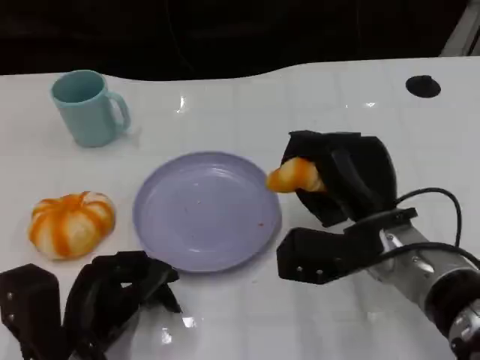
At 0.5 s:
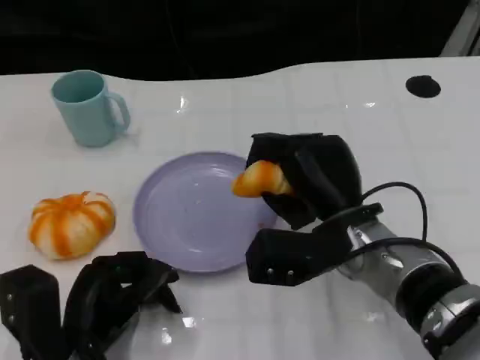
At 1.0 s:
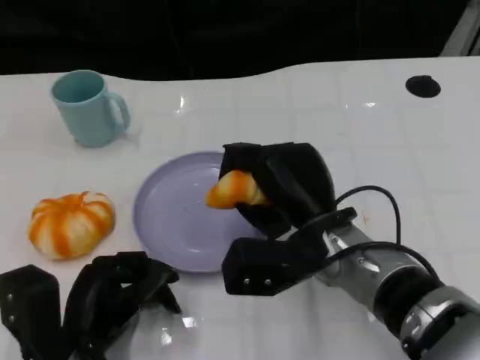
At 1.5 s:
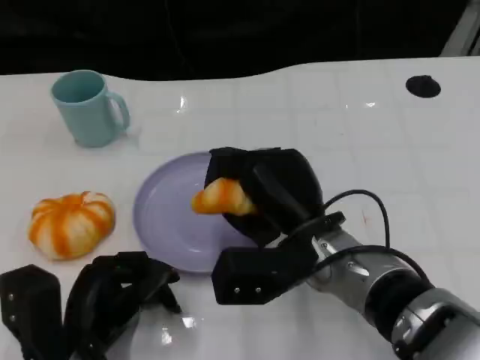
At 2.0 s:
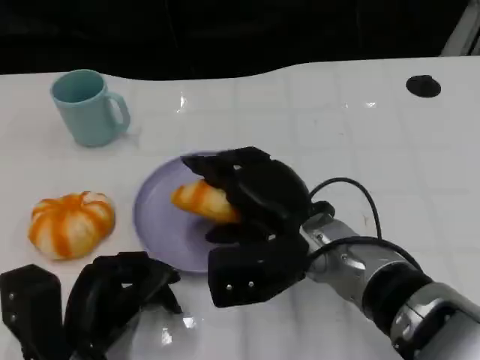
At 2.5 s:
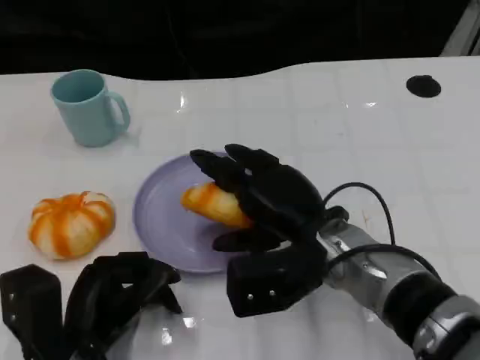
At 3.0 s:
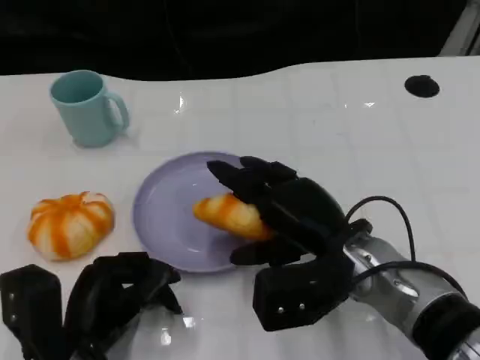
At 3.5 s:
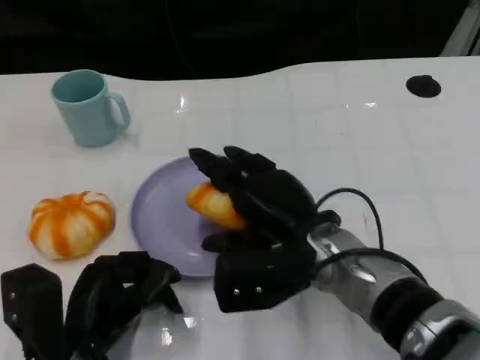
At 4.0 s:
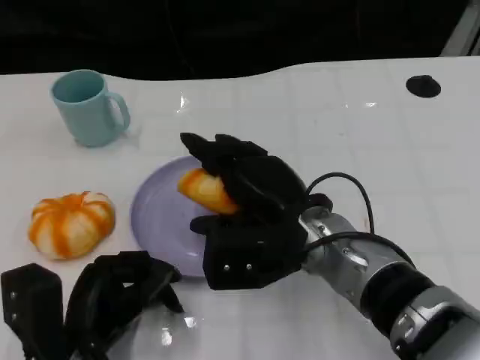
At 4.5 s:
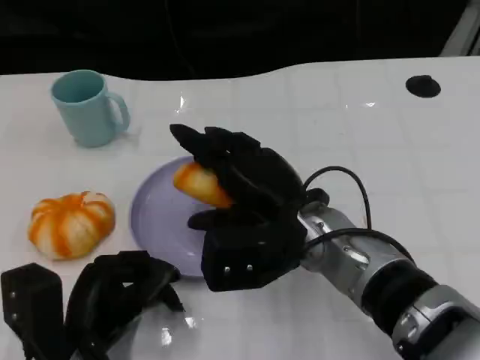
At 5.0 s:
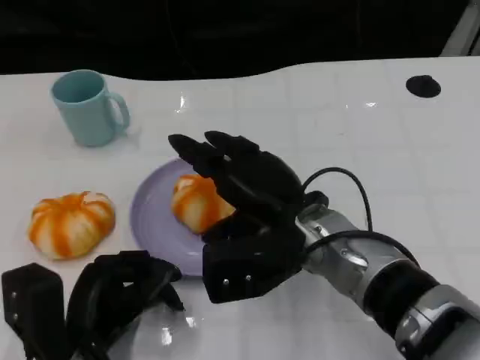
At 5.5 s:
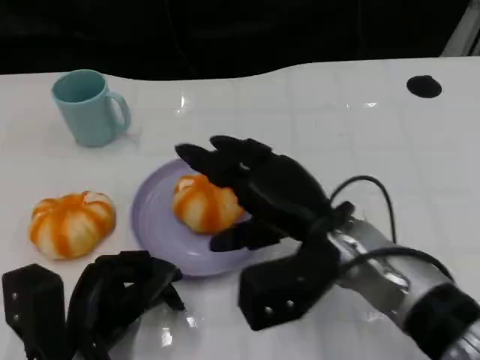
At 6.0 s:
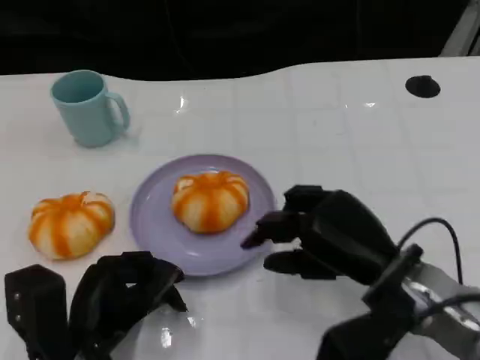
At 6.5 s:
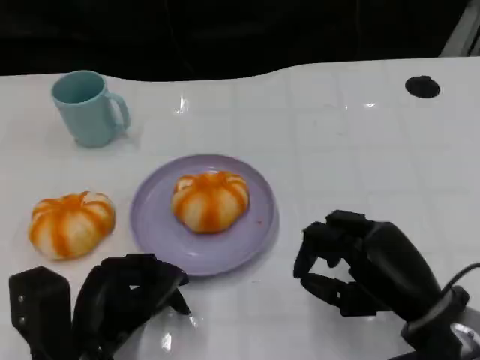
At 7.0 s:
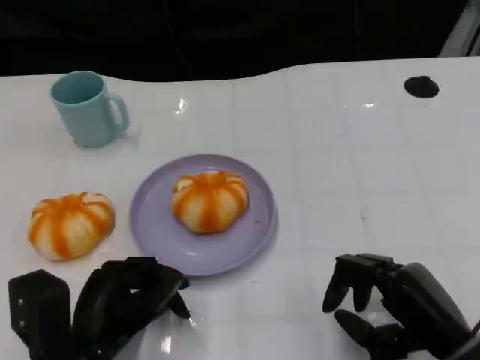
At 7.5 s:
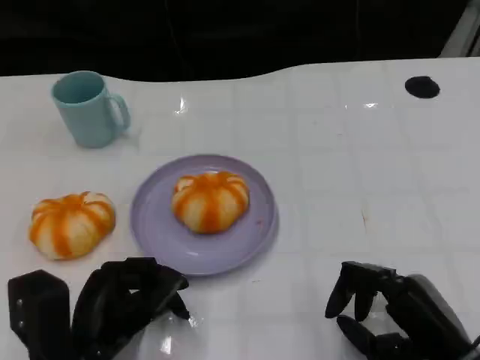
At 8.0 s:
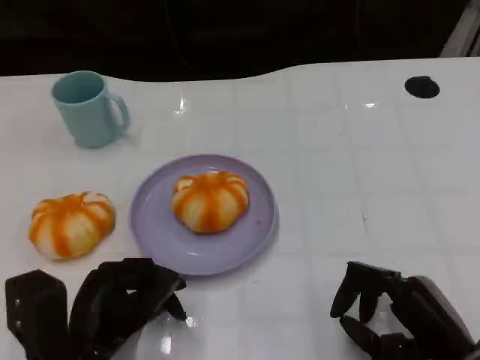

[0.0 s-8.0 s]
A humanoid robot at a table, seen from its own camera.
Task of the whole recording: Grasp the bread from the table and place it into the plate.
0.0 to 2.0 s: The right hand heads to the left, covering about 5 cm.
2.0 to 4.0 s: The hands make only small movements.
4.0 to 6.0 s: The right hand moves to the right, roughly 10 cm.
6.0 to 8.0 s: The right hand goes approximately 10 cm backward, to the right and downward.

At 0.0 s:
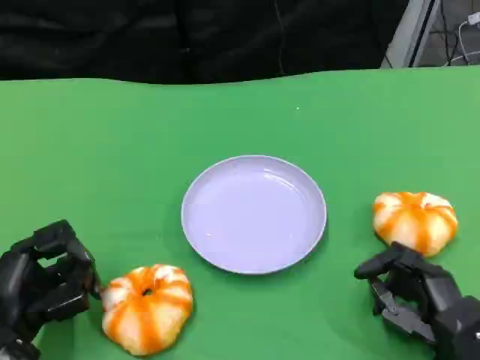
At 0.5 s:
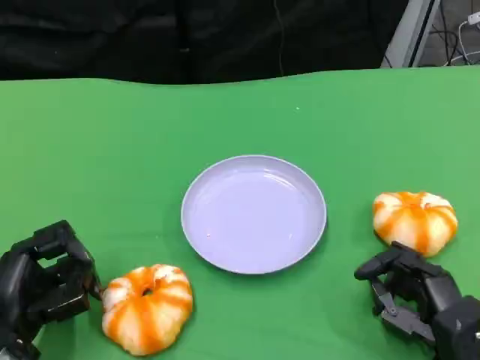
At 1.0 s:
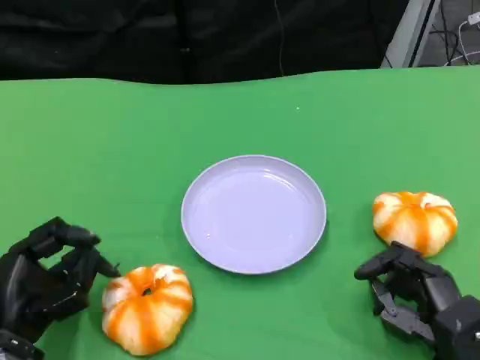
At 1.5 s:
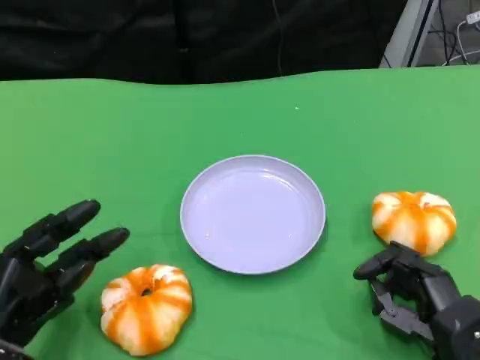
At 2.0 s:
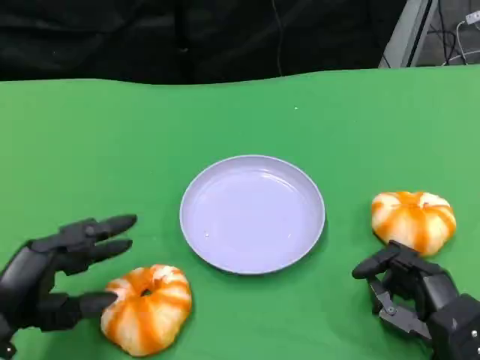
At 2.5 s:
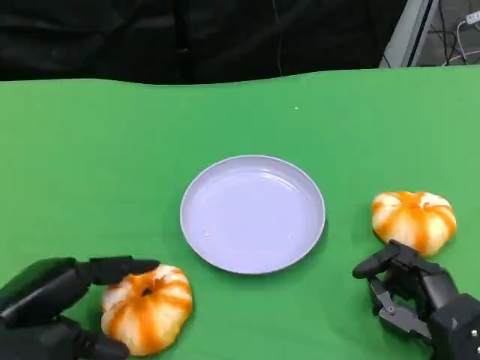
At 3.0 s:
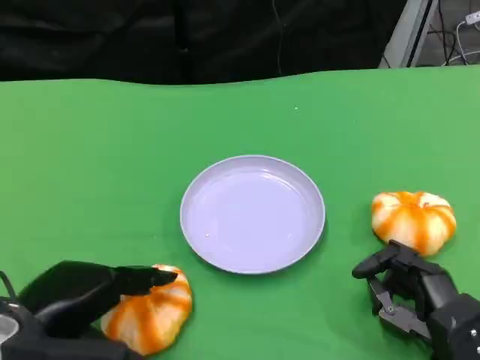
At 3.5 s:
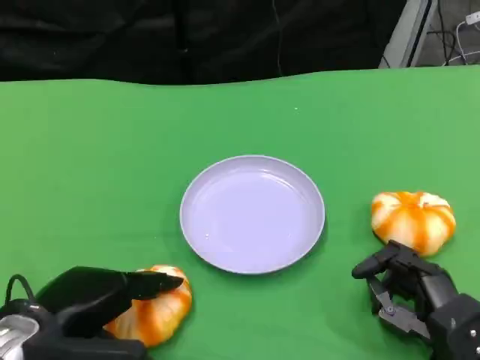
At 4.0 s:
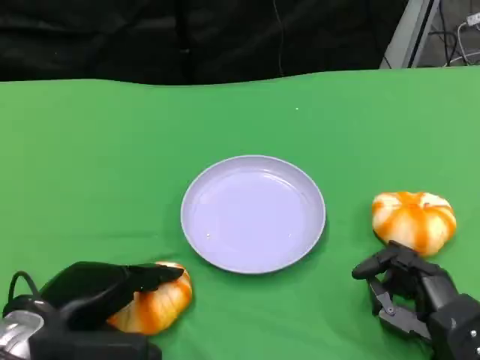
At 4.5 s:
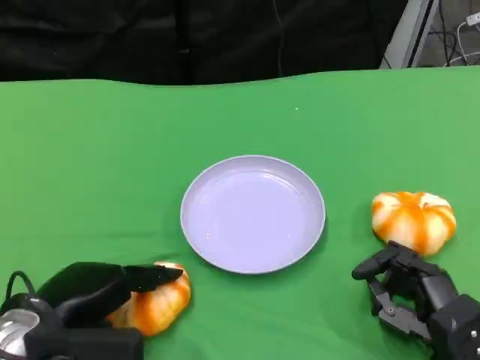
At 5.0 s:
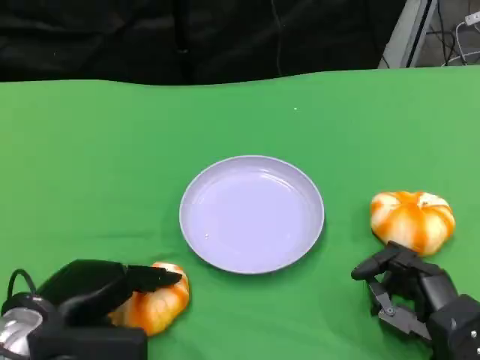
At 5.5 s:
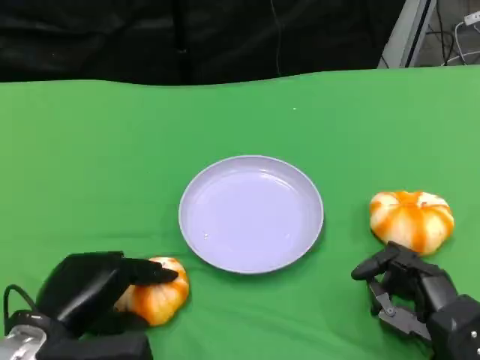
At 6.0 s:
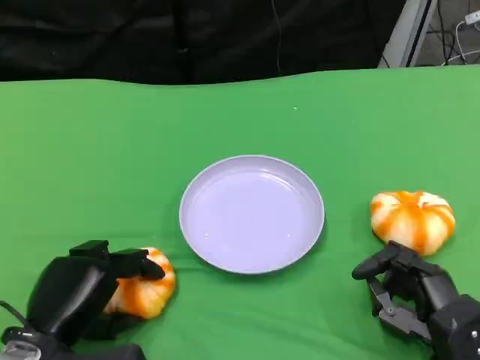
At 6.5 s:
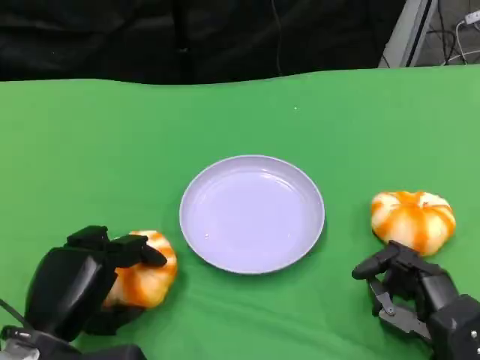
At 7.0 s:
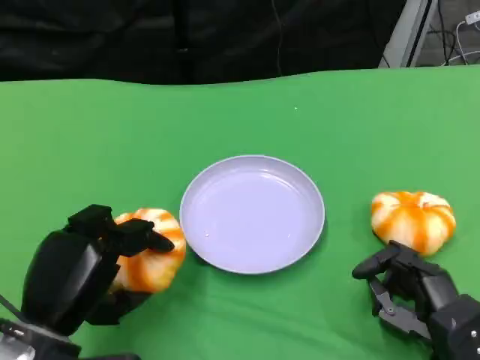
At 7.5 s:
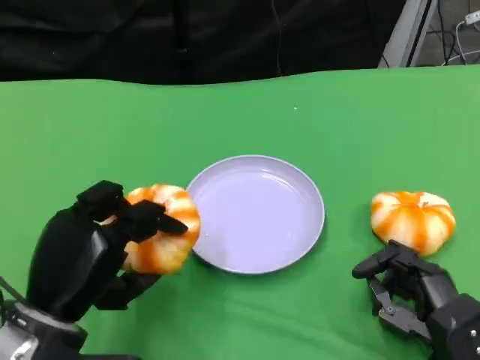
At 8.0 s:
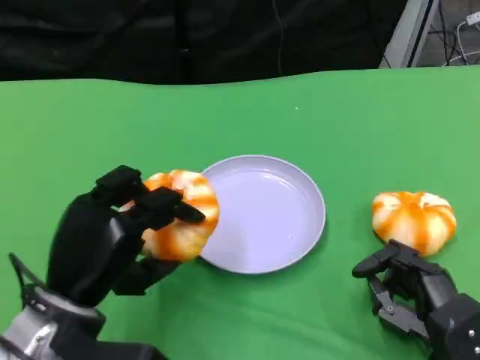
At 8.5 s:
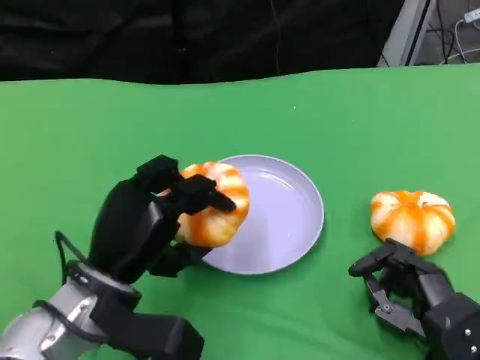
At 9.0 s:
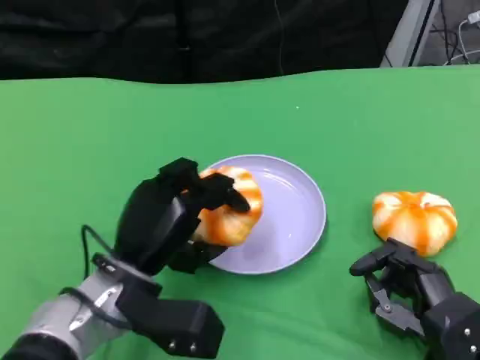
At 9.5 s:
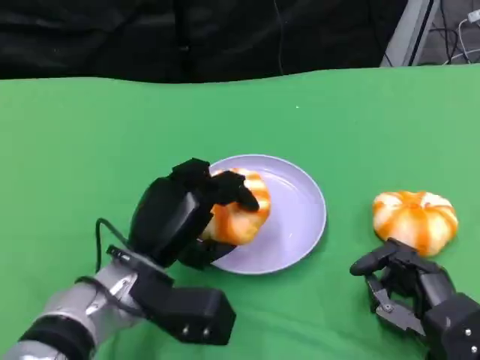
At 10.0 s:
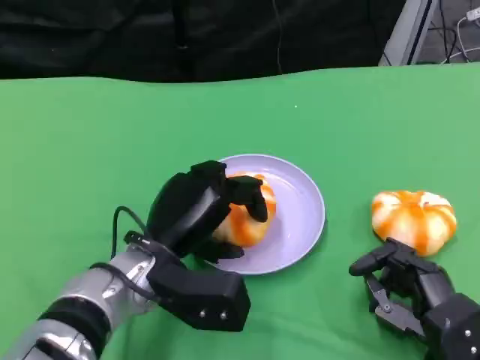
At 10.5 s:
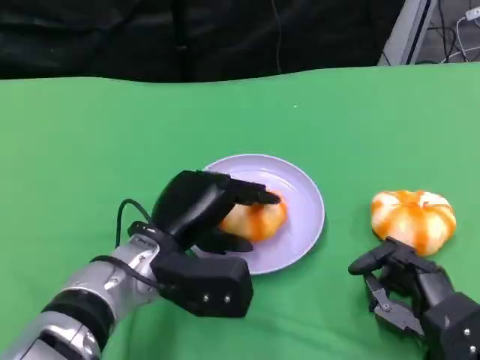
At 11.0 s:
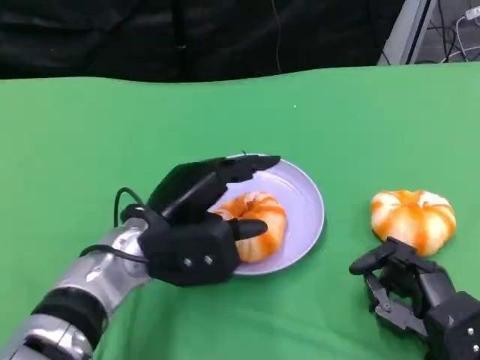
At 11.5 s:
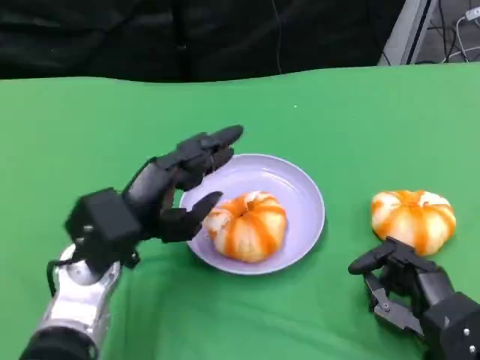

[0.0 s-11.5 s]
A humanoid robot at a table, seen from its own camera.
Task of the whole recording: Grasp the bread from the table and place it into the plate.
2.0 to 4.0 s: The left hand shifts by about 5 cm.
7.5 to 9.5 s: The left hand moves to the right and forward, some 10 cm.

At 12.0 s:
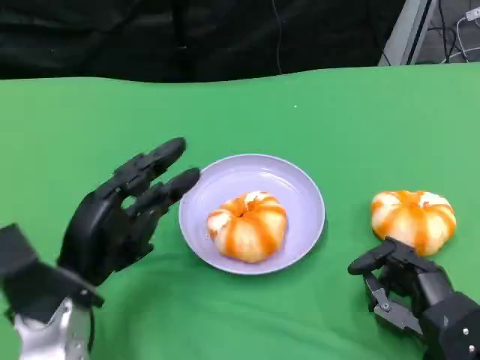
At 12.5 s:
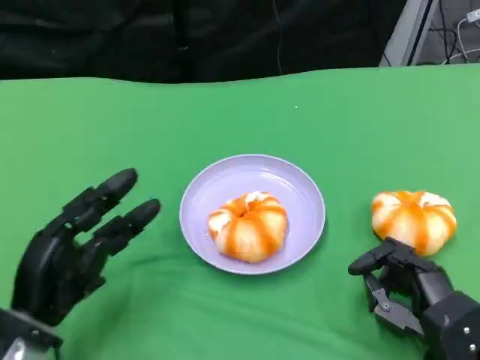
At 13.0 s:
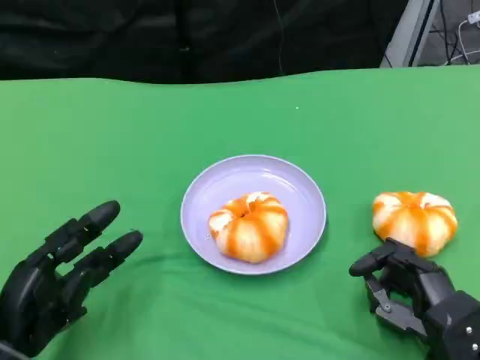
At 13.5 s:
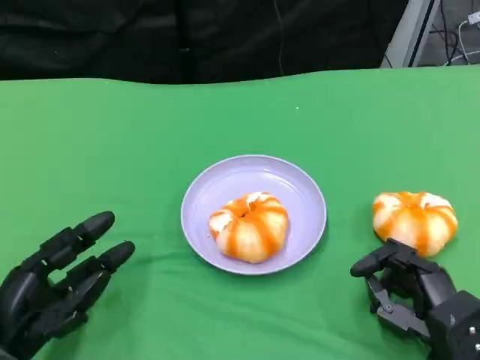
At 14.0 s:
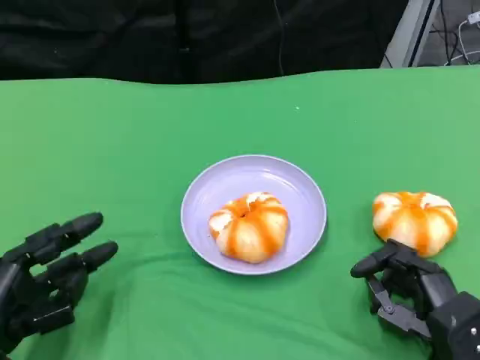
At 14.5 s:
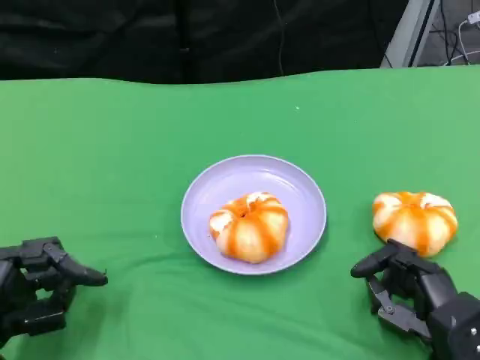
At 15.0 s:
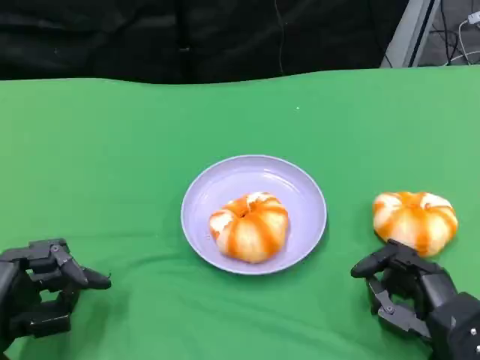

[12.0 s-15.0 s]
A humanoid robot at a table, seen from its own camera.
Task of the whole recording: Grasp the bread from the table and place it into the plate.
12.0 to 13.5 s: The left hand moves to the left and backward, some 10 cm.
13.5 to 15.0 s: The hands stay close to where they were, moving slightly.

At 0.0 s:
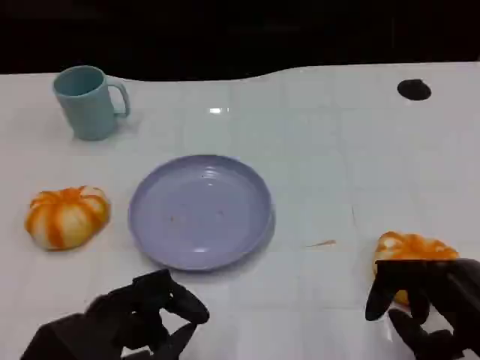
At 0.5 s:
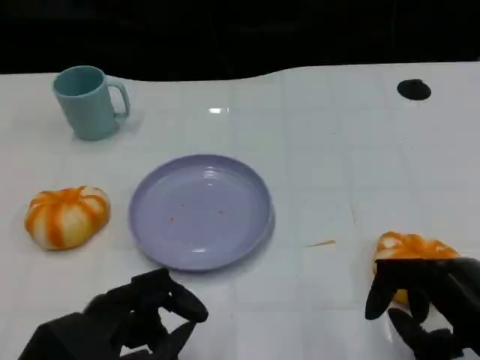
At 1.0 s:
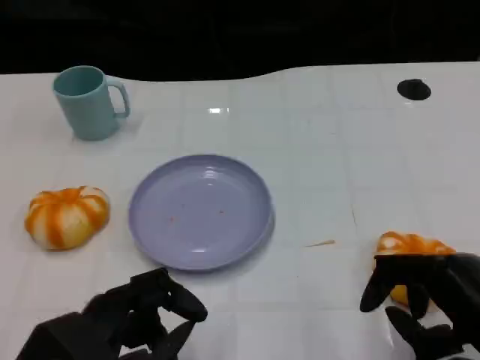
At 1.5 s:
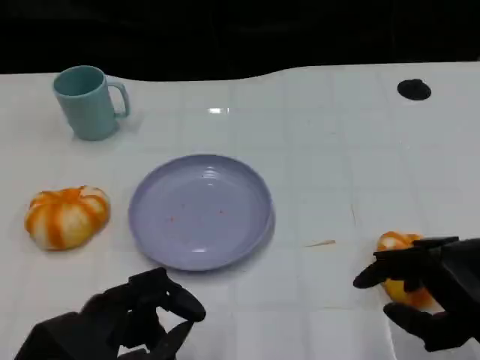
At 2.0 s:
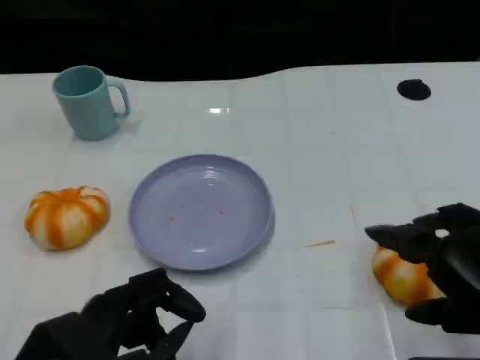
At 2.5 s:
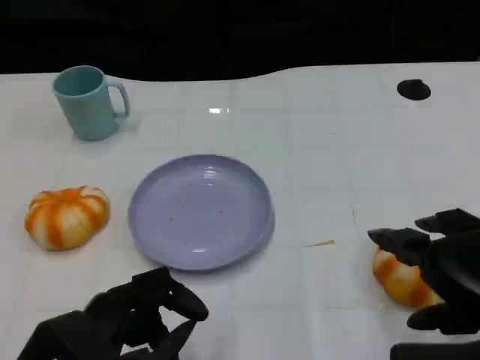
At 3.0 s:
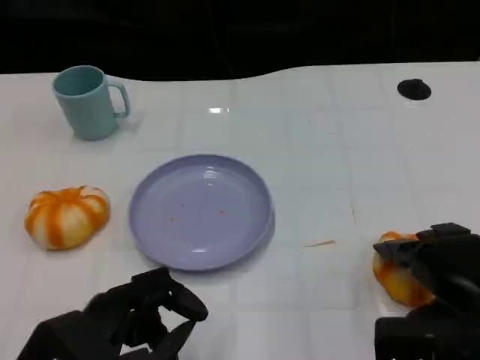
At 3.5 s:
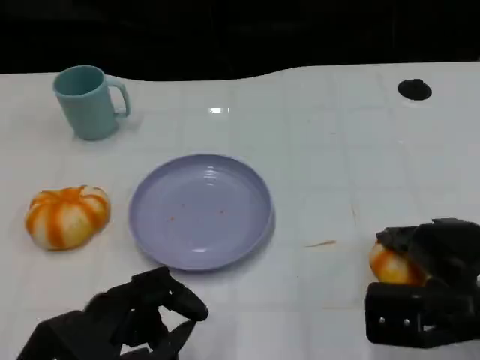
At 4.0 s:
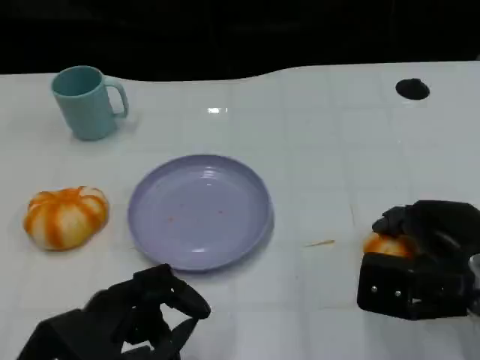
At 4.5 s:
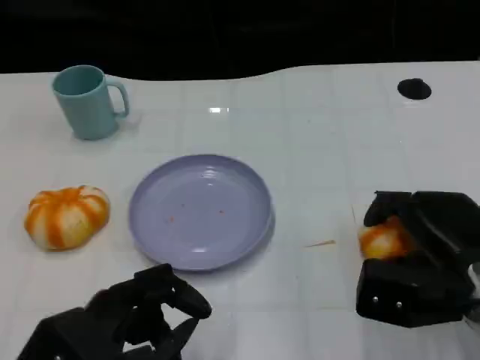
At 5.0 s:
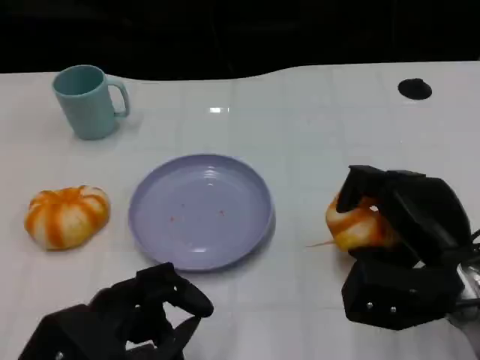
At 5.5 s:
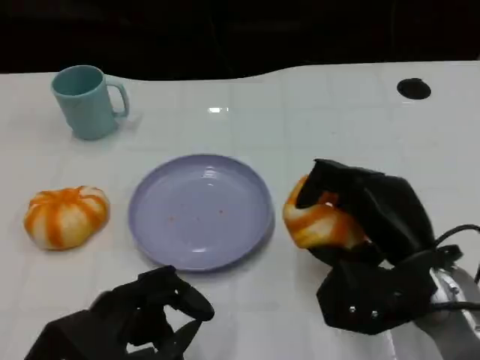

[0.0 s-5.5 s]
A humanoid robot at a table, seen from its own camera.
Task of the whole recording: Grasp the bread from the table and place it into the plate.
0.0 to 2.0 s: The right hand heads upward, covering about 10 cm.
2.0 to 3.5 s: The right hand shifts approximately 10 cm forward and downward.
3.5 to 5.5 s: The right hand heads to the left, covering roughly 5 cm.
